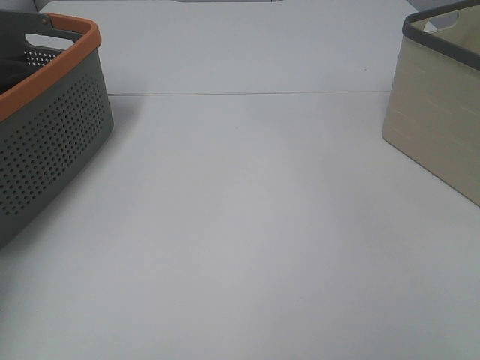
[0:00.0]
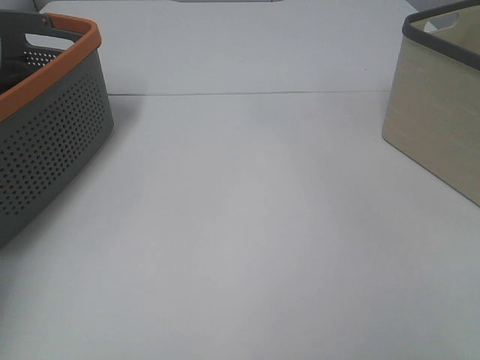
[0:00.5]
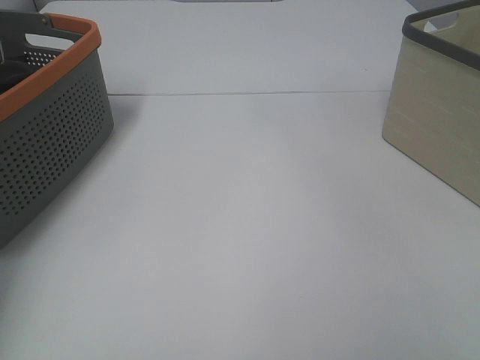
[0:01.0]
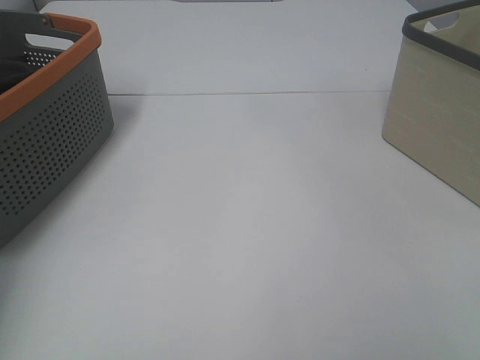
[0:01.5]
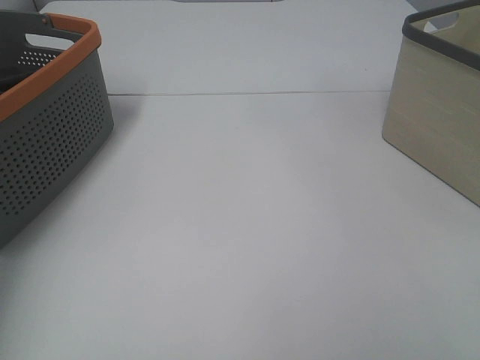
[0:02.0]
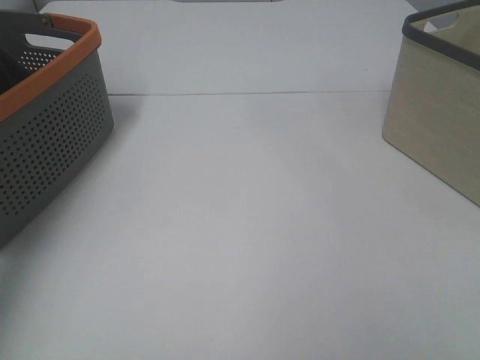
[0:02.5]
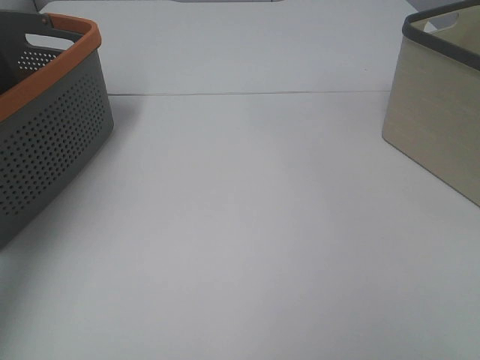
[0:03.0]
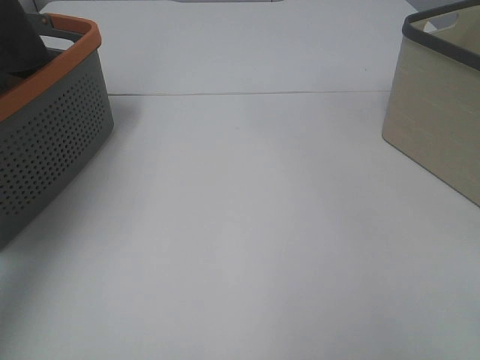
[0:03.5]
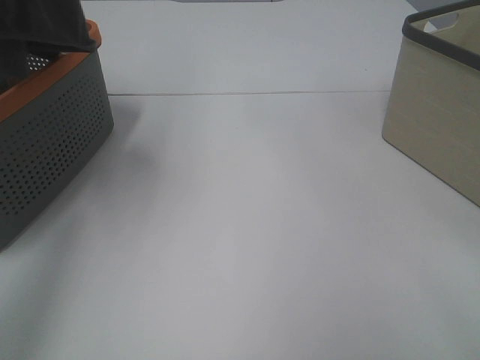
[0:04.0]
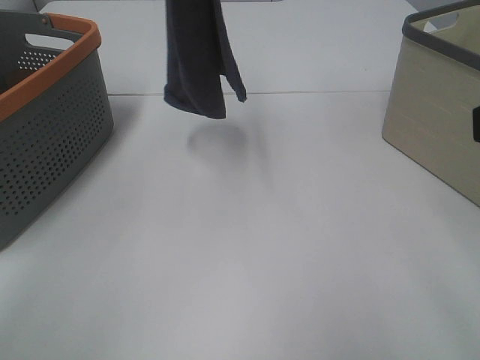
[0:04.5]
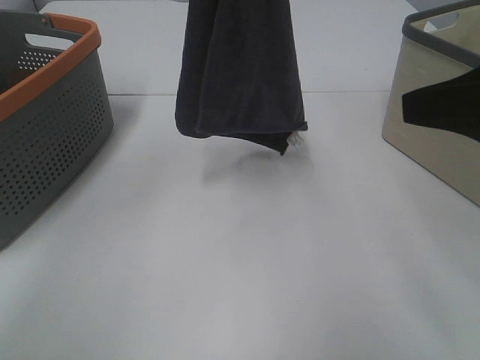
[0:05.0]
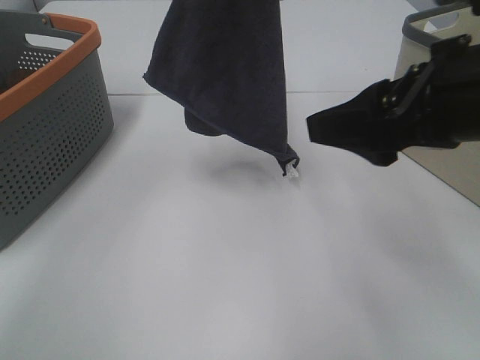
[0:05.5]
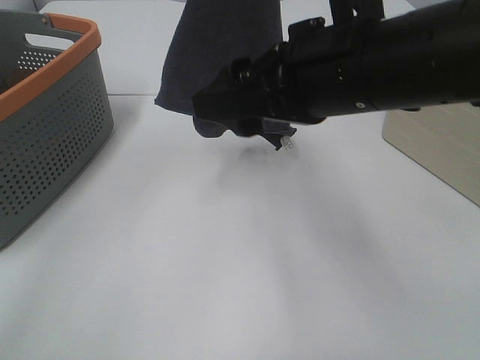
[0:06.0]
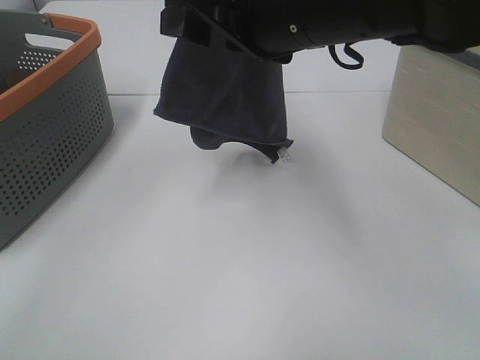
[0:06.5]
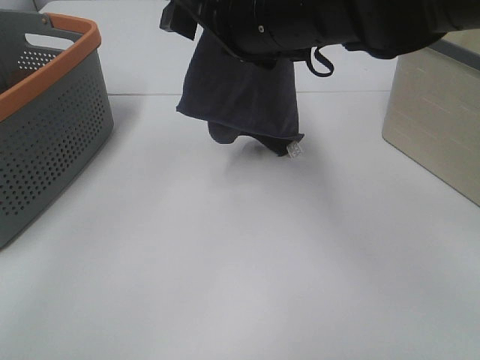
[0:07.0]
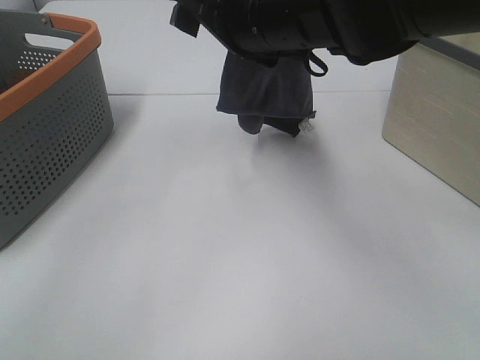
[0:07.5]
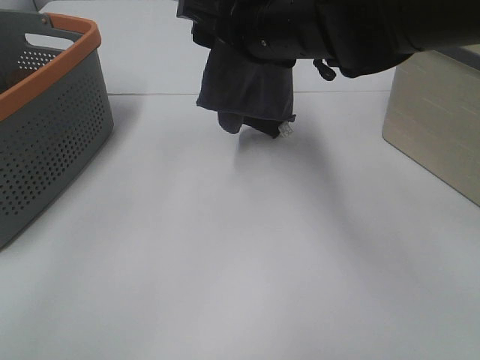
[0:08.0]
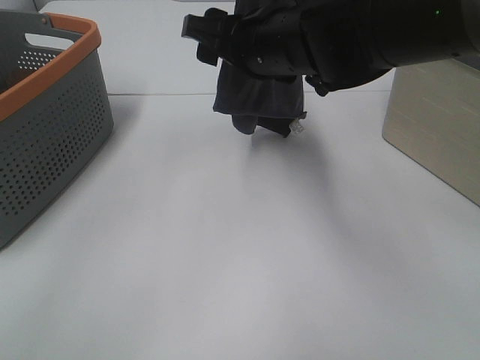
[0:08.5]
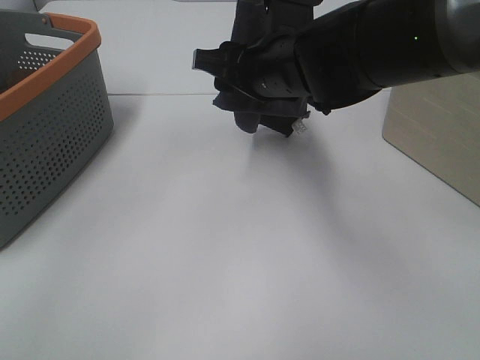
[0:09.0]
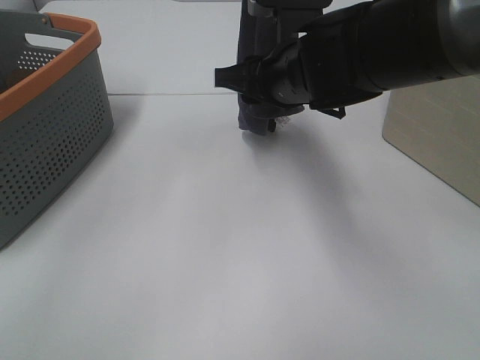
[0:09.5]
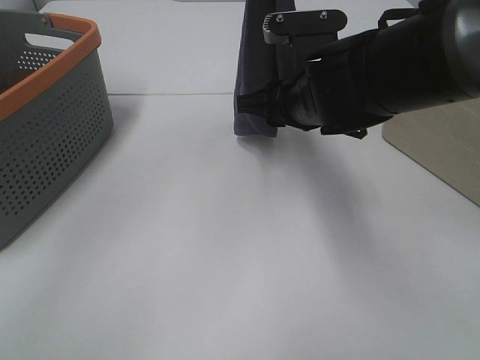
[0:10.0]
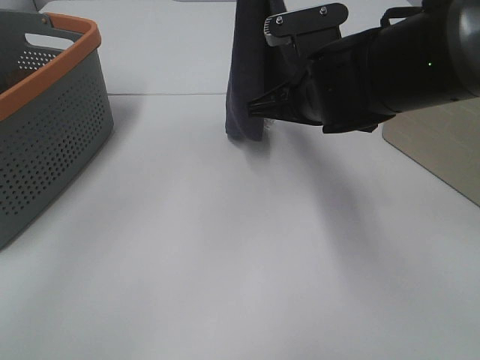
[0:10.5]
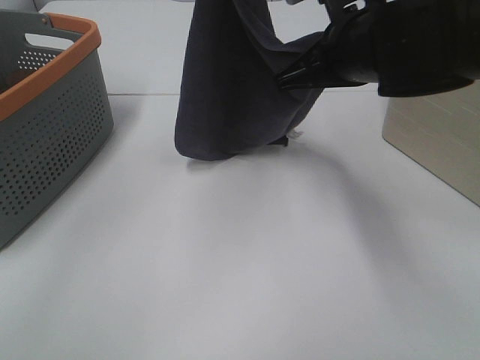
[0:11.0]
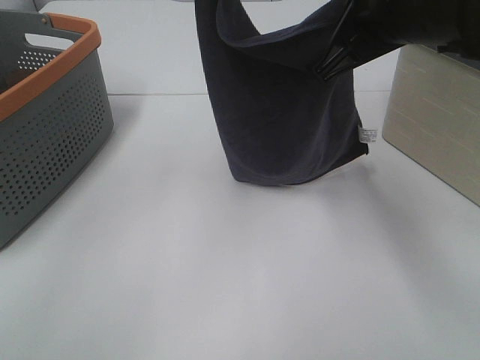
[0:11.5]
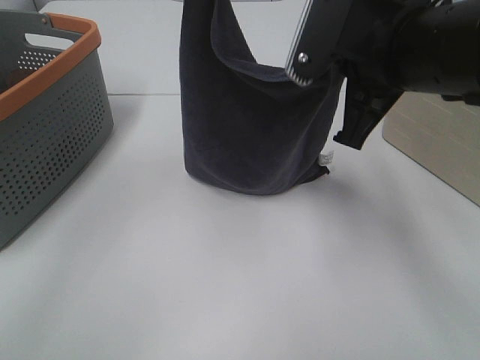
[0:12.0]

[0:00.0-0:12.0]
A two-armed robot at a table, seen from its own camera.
Task of the whole recording: Remove the towel and place it.
Step, 0:02.5 to 0:11.0: Right hand: grab a corner of the grey towel and straighten it.
0:02.0 to 0:04.0: The left gripper heads upward, to the right and backward, covering about 30 cm.
0:04.0 to 0:06.0: The left gripper goes about 20 cm to the right and downward, while the right gripper goes approximately 25 cm forward and to the left.
0:06.0 to 0:08.0: The left gripper ends up some 5 cm from where it was, while the right gripper moves forward, roughly 10 cm.
0:08.0 to 0:10.0: The right gripper moves downward, roughly 5 cm.
0:10.0 to 0:12.0: The right gripper is displaced upward, backward and to the right by roughly 10 cm, and closes its fingers.

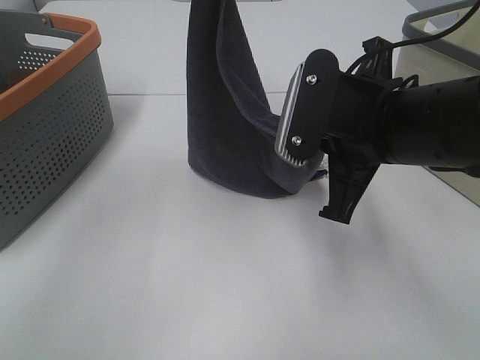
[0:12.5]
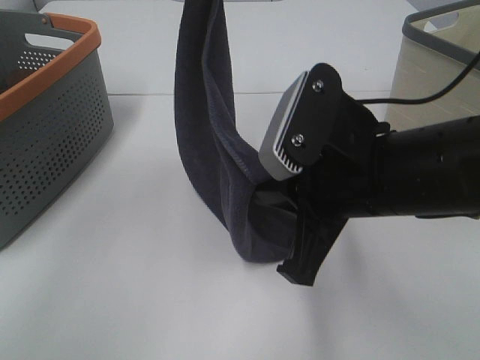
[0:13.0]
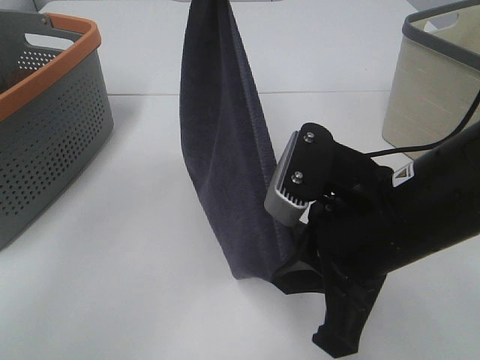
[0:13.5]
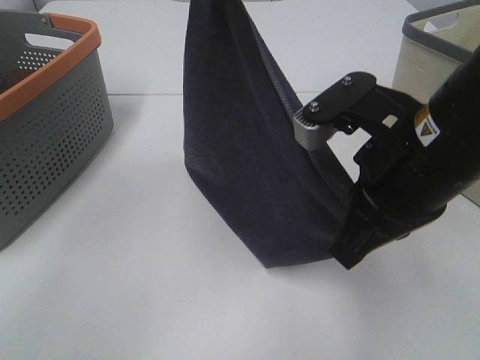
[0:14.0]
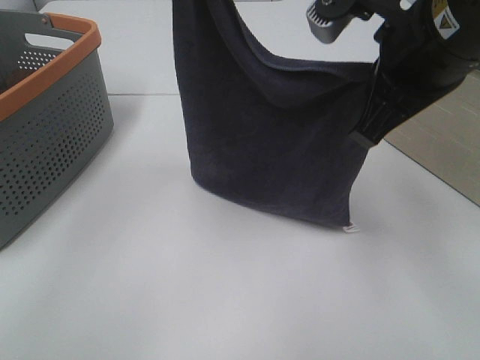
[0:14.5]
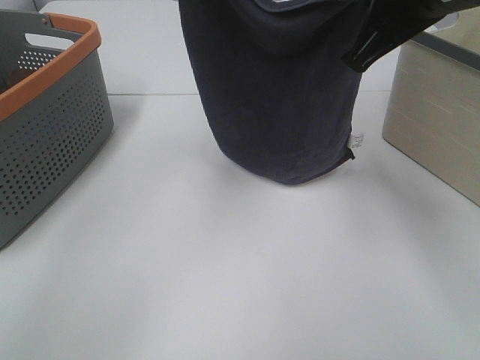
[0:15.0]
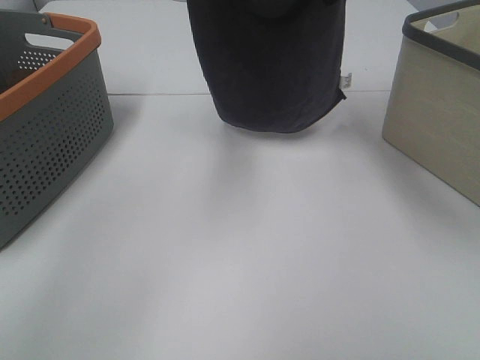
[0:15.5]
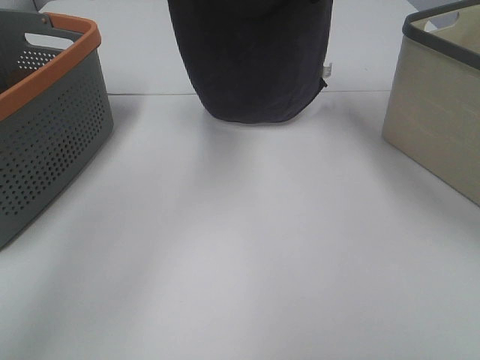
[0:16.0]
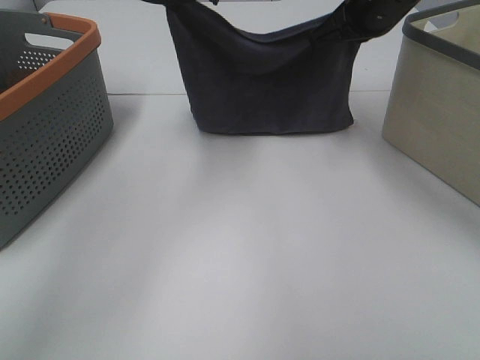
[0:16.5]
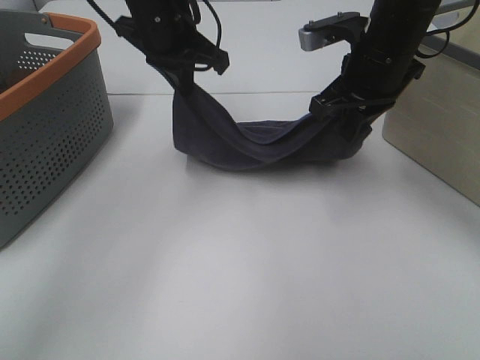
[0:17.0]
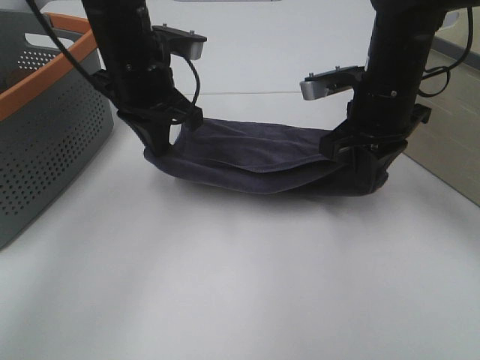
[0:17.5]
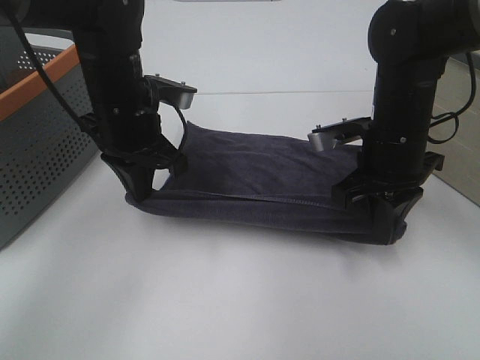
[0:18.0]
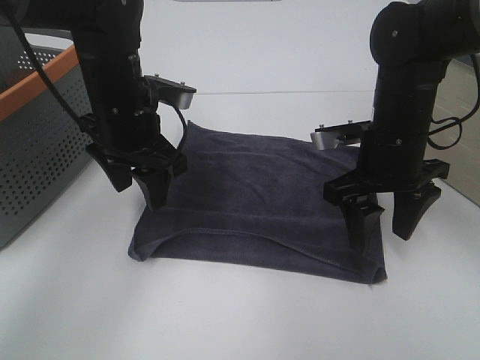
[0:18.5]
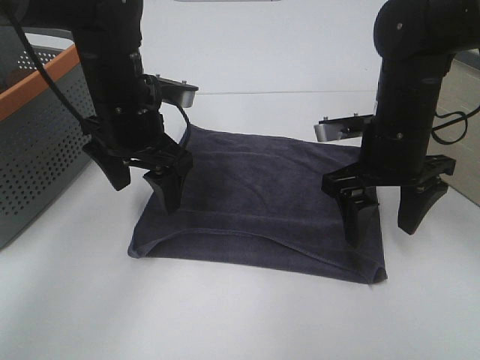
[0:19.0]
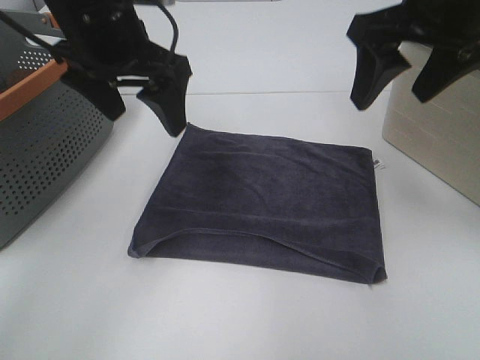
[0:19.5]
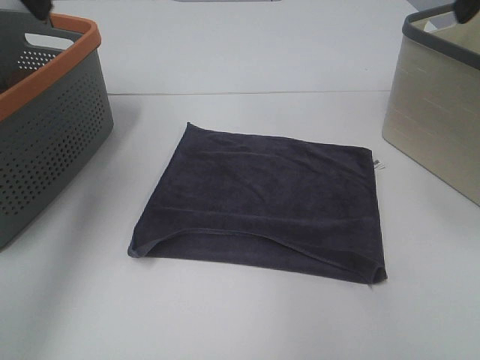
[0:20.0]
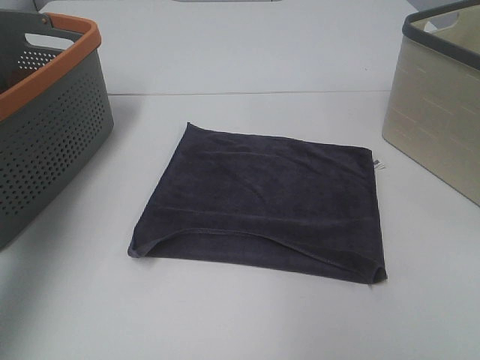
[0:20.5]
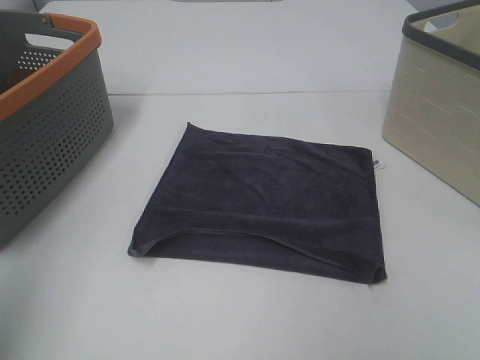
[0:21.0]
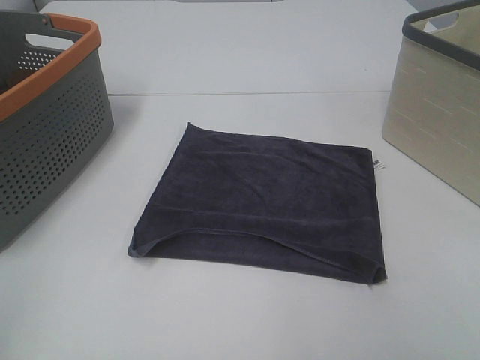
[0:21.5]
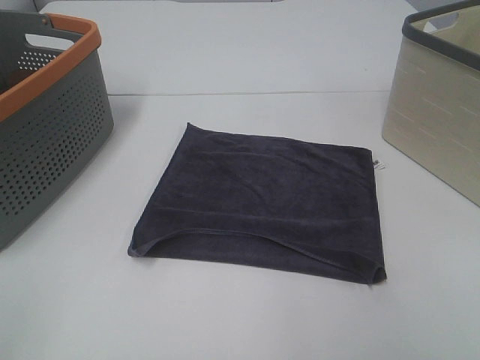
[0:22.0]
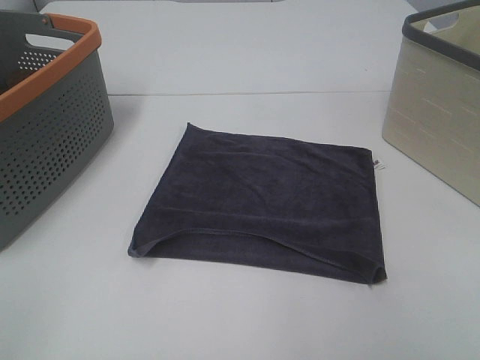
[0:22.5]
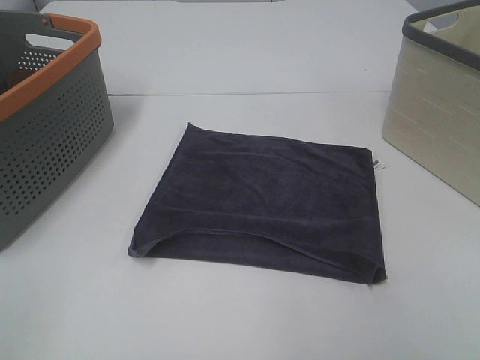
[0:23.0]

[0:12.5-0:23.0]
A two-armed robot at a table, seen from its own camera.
Task of the whole recording: Remove the towel and place it.
0:12.5 to 0:14.5: The right gripper shifts approximately 10 cm upward.
0:14.5 to 0:16.5: The left gripper is displaced forward and downward by approximately 10 cm, while the right gripper heads forward, covering about 20 cm.
0:16.5 to 0:19.0: The left gripper travels downward and backward by approximately 15 cm, and opens its fingers. Meanwhile the right gripper is displaced backward and downward by approximately 15 cm, and opens its fingers.
0:19.0 to 0:21.0: The left gripper shifts some 35 cm backward, to the left and upward. The right gripper heads backward, upward and to the right, covering some 35 cm.
0:21.0 to 0:23.0: The left gripper shifts approximately 15 cm backward and downward.

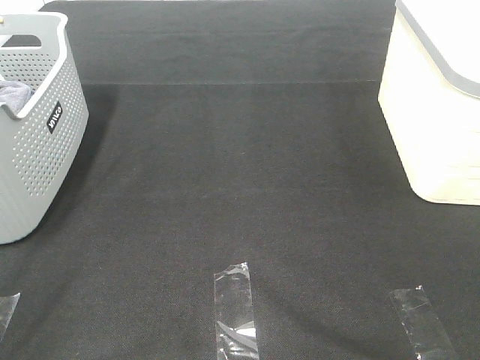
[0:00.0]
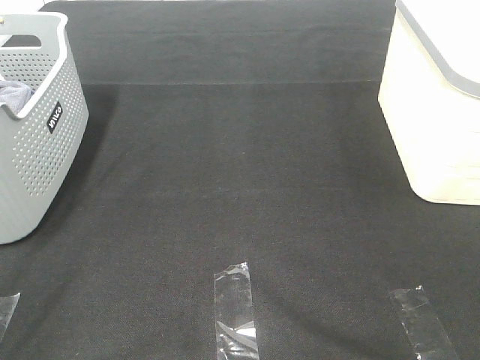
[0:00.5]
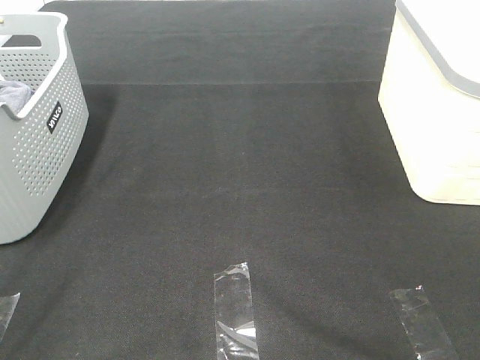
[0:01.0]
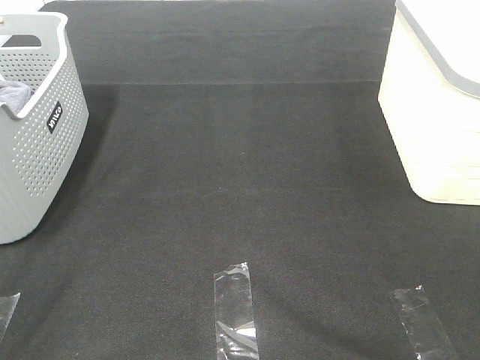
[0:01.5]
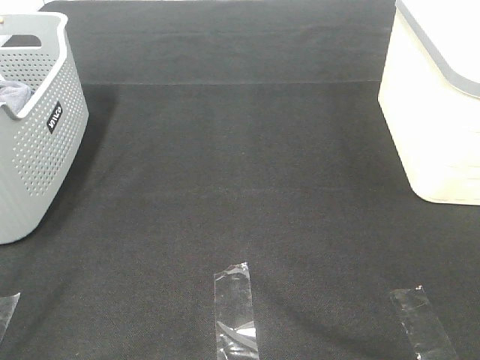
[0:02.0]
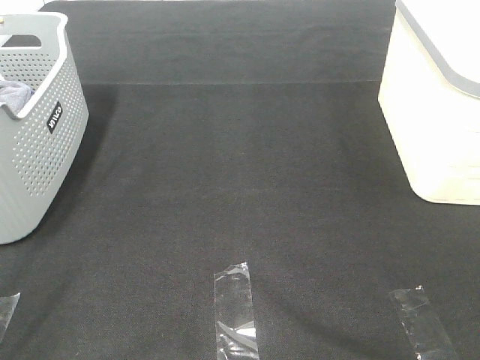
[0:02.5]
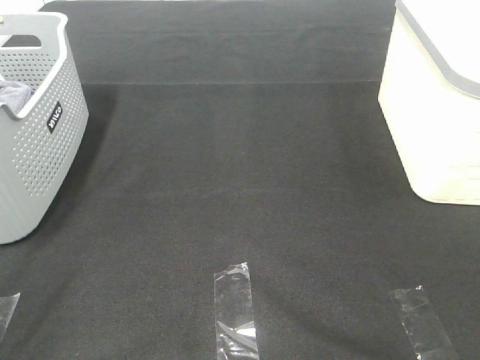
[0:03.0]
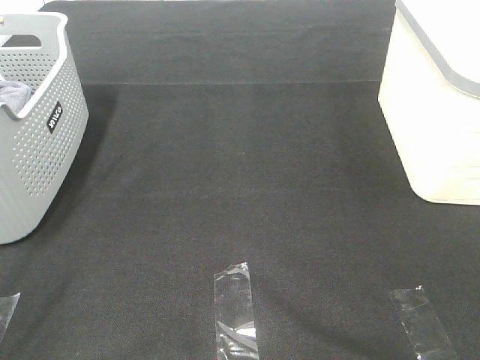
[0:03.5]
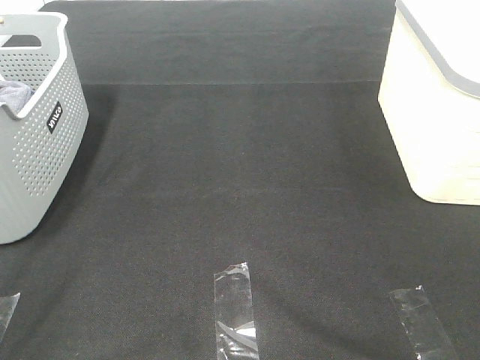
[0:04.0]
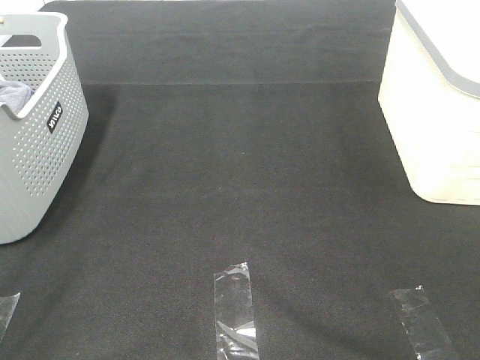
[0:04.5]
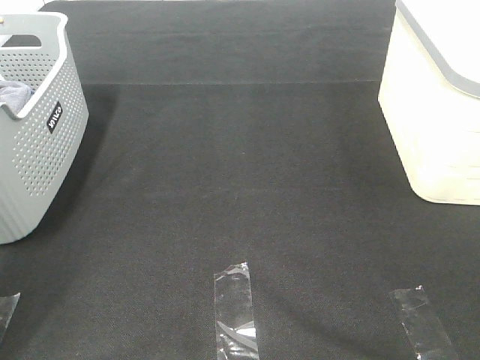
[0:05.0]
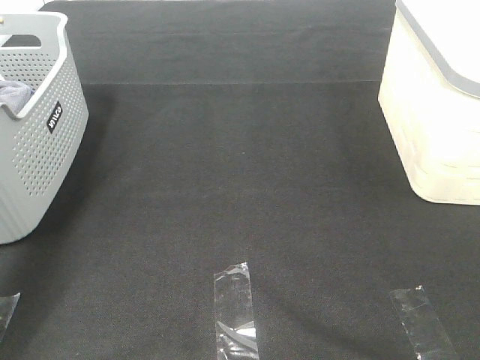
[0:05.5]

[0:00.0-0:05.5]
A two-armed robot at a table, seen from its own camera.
Task of the whole recording: Remove the towel and place it.
0:00.0 to 0:03.5: Neither gripper changes place.
0:03.5 to 0:05.5: The left gripper travels forward by some 35 cm.
